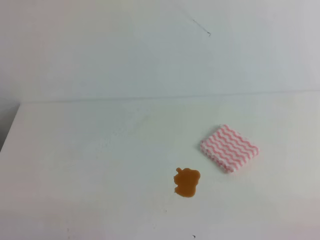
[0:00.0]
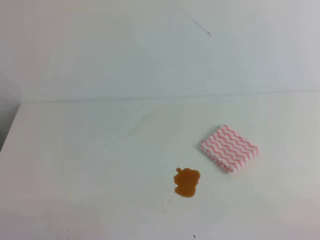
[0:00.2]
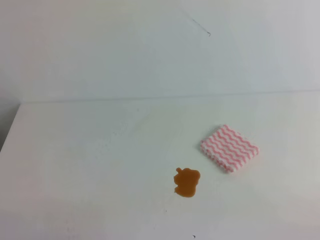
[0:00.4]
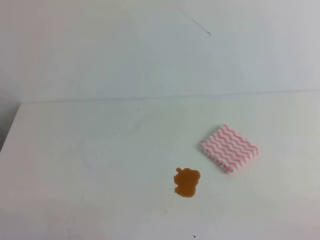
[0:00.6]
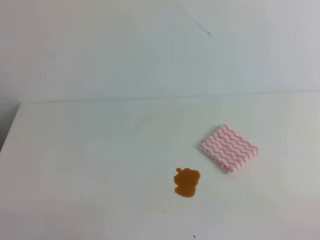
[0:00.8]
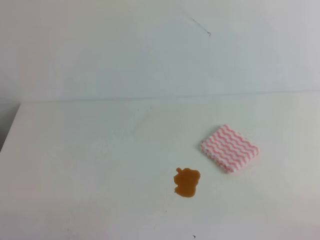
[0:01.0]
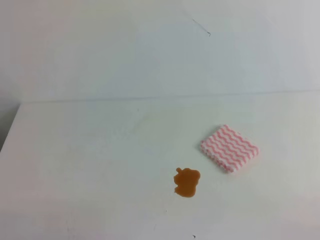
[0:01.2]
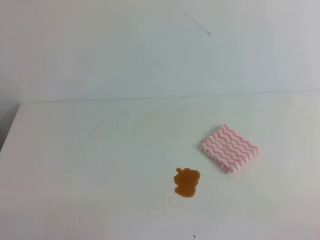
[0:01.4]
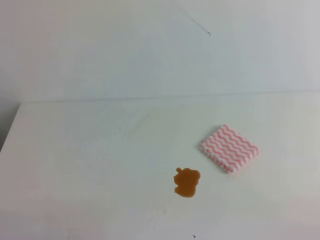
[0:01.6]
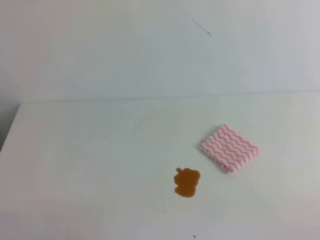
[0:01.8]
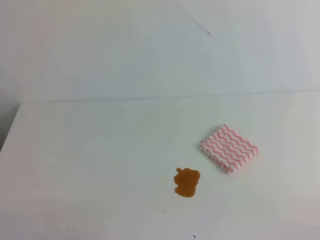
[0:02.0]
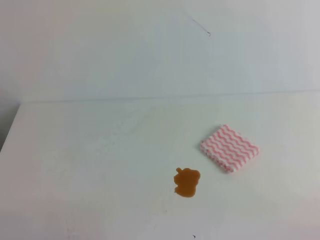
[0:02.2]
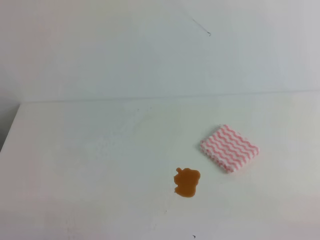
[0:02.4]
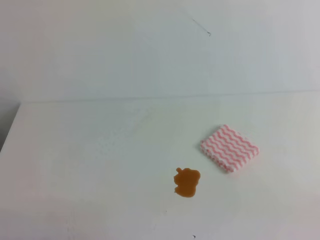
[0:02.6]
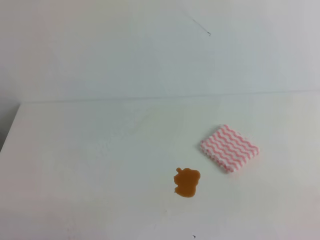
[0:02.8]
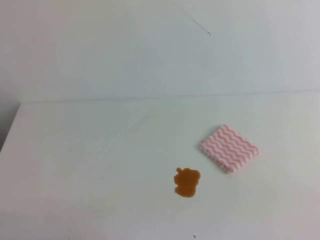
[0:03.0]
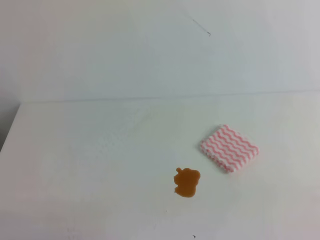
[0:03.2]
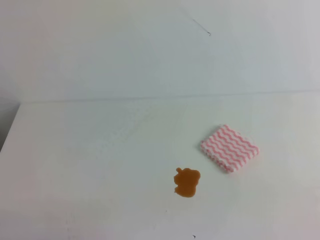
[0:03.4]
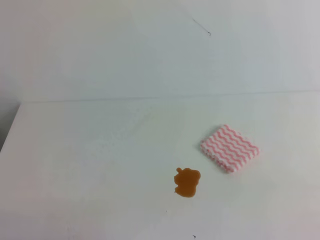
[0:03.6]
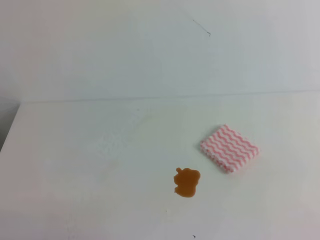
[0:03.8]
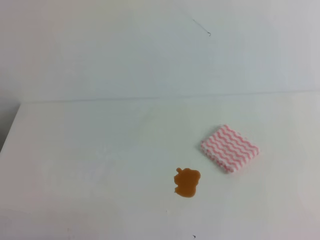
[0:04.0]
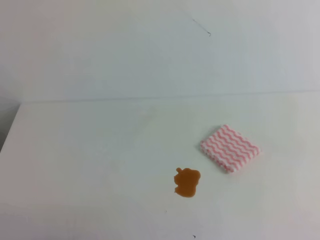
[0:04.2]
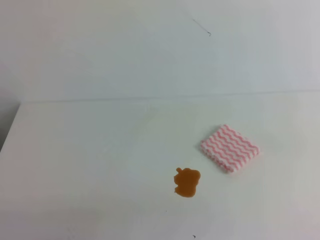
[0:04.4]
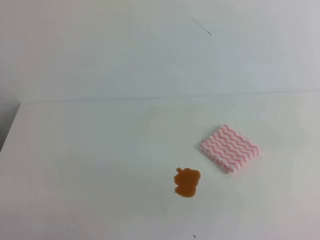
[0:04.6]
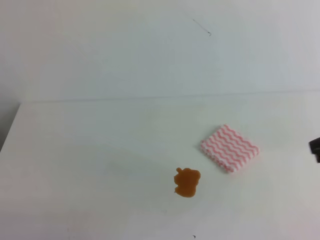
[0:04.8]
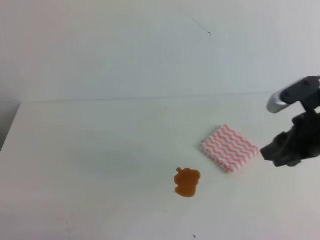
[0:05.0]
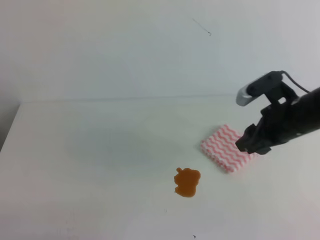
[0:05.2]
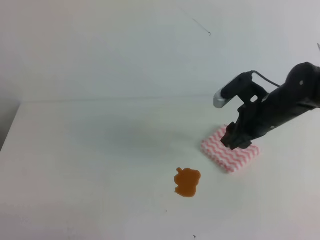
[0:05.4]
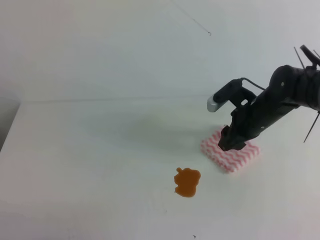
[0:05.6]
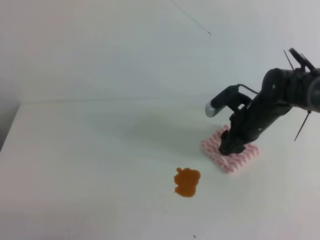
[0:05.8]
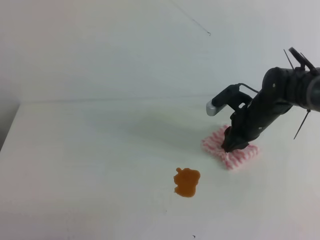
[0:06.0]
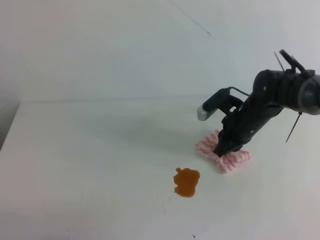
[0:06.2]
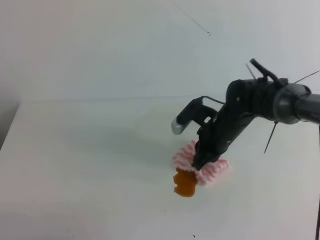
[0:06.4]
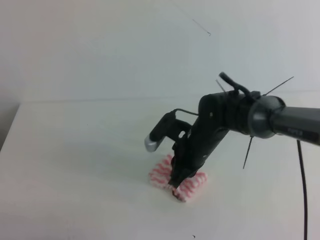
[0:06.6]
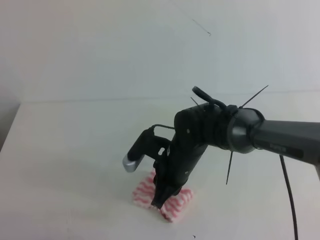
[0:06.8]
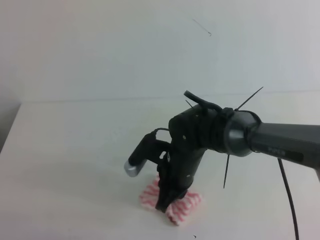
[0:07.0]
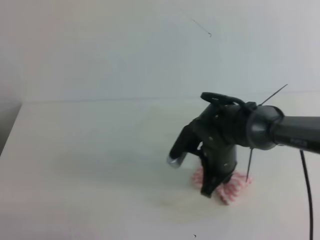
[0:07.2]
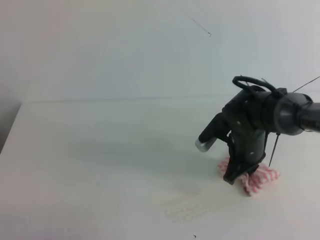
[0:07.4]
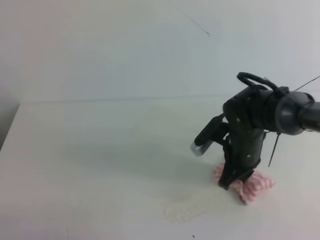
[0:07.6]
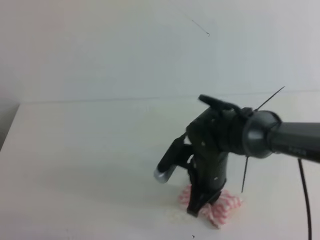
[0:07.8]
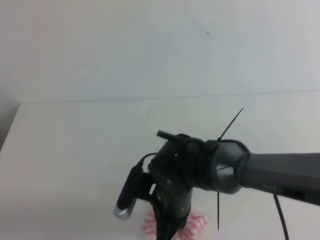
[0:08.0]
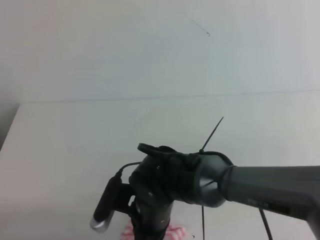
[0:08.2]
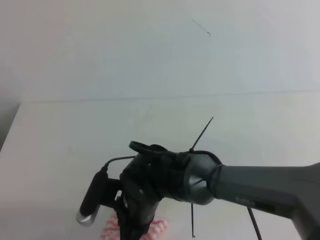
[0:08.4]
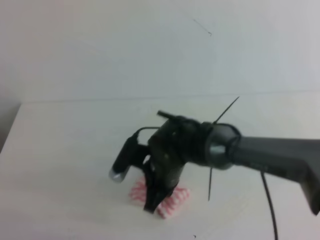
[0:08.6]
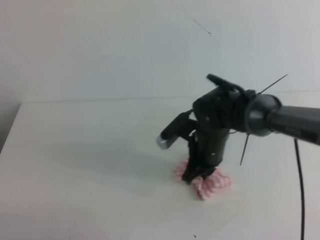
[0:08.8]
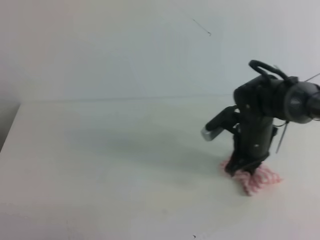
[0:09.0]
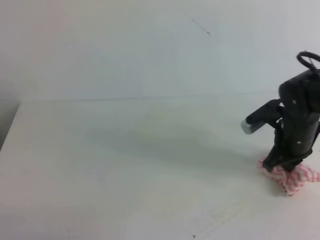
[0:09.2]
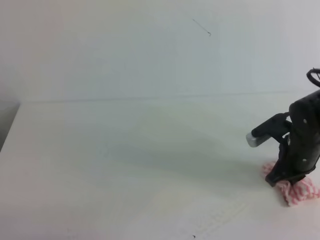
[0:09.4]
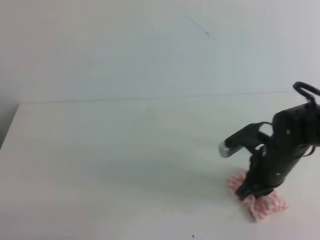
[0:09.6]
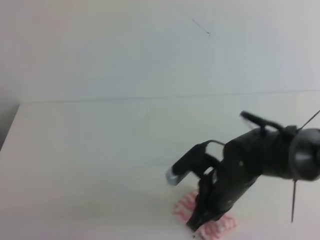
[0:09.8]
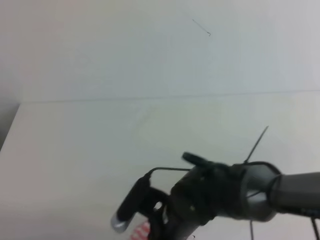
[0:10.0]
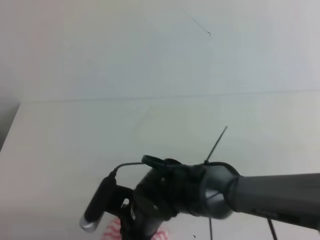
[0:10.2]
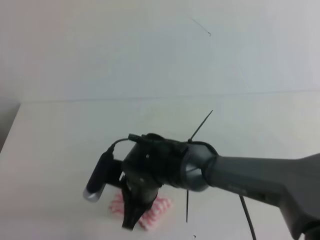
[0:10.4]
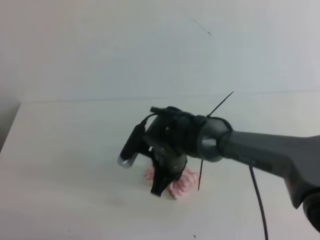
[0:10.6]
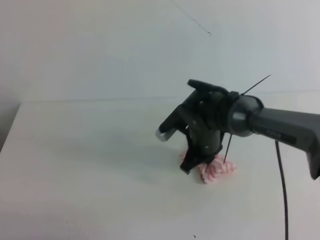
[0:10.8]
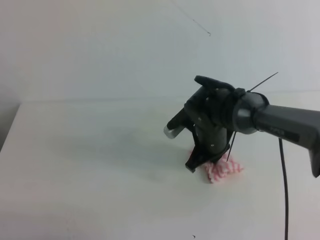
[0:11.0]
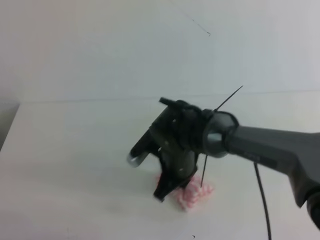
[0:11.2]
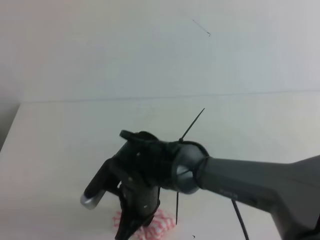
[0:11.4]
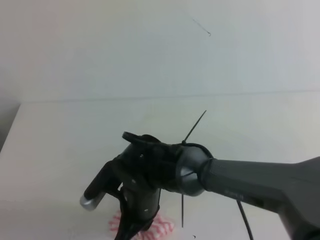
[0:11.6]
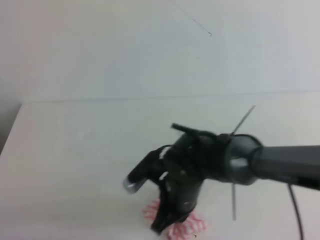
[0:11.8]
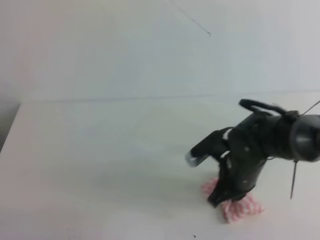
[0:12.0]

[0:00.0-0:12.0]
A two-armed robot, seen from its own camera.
0:00.0 to 0:01.6: The two grippers keep their place.
0:04.4 to 0:06.0: The right gripper travels forward, downward and to the left by approximately 35 cm, and opens.
0:06.0 to 0:07.6: The right gripper shifts roughly 10 cm backward and to the left, and closes.
0:07.6 to 0:09.0: The right gripper reaches roughly 15 cm to the left, then returns.
0:09.0 to 0:10.4: The right gripper moves to the left and backward, approximately 20 cm.
0:10.4 to 0:12.0: The right gripper swings left and right, roughly 15 cm each way, with 2 reversals.

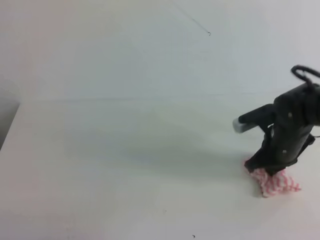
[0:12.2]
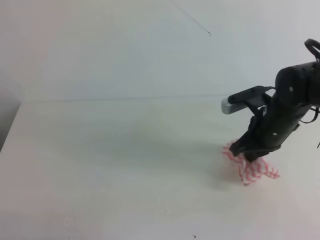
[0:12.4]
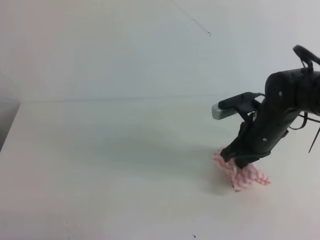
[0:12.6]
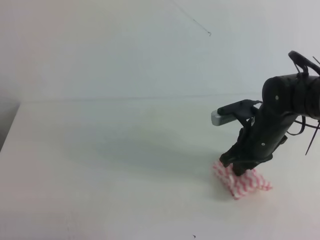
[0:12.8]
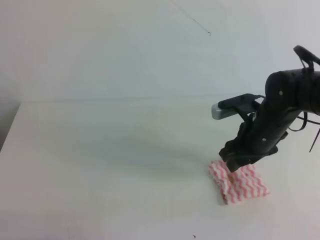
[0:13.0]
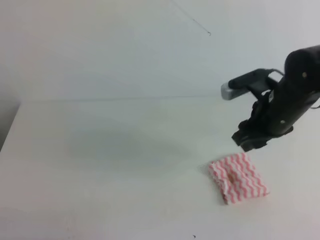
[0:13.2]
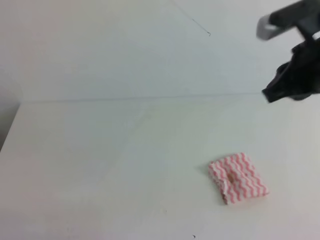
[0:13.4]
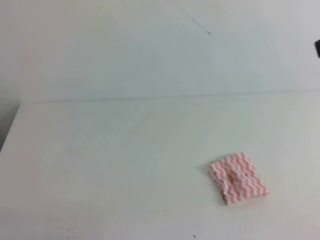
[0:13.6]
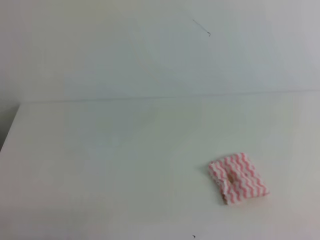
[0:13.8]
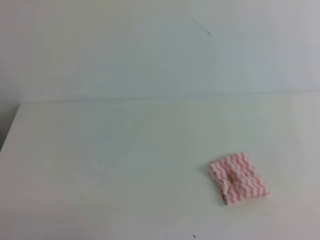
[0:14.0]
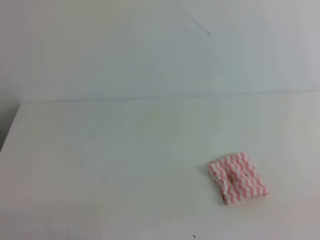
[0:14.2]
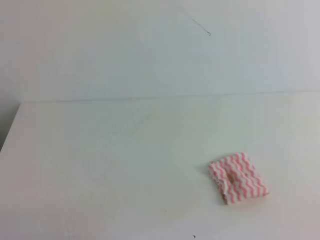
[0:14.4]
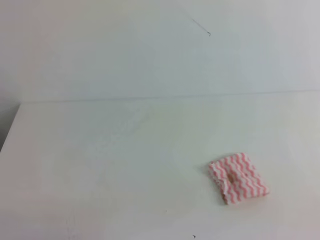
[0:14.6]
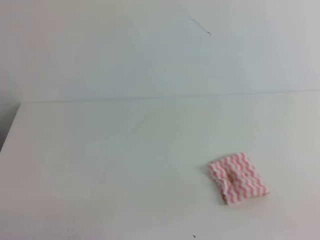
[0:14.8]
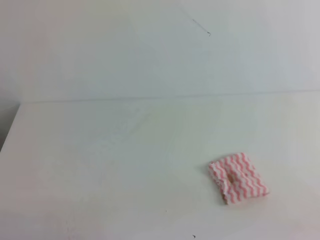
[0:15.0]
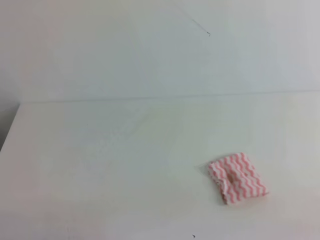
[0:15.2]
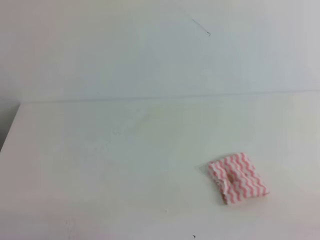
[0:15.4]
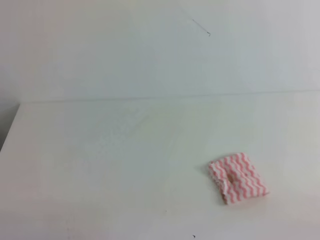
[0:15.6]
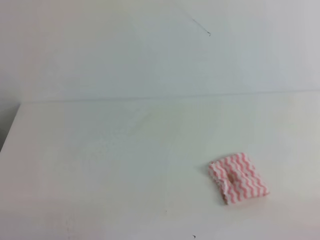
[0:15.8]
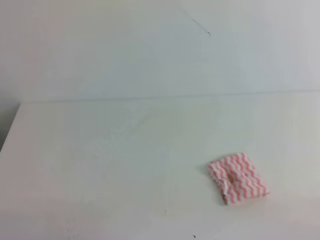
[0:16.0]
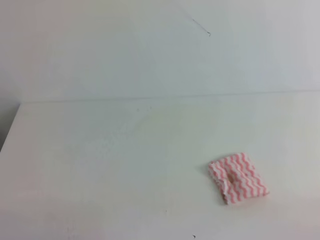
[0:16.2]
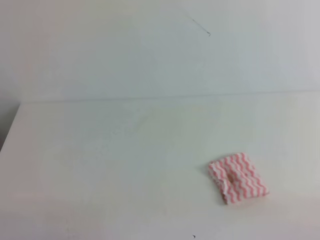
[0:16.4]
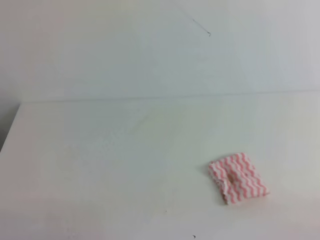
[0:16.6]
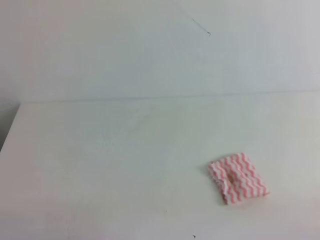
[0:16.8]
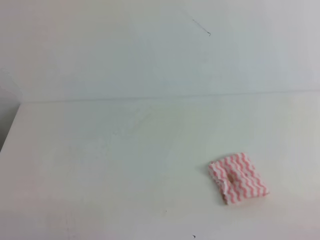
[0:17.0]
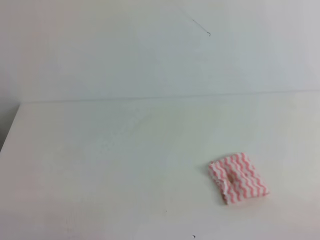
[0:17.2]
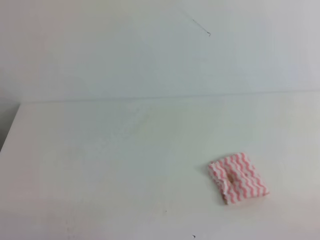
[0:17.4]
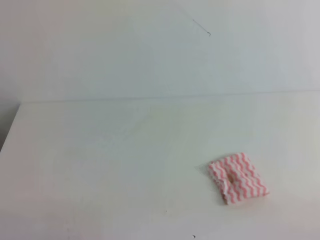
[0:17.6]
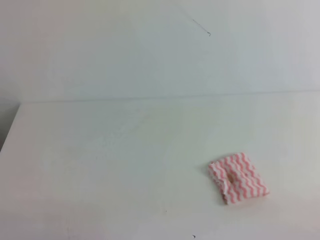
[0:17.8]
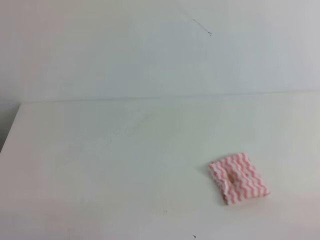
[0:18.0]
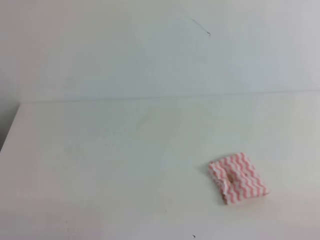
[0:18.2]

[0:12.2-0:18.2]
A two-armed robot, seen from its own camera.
0:12.2 to 0:13.8: The right gripper travels upward and backward by approximately 30 cm, and opens, then closes again.
